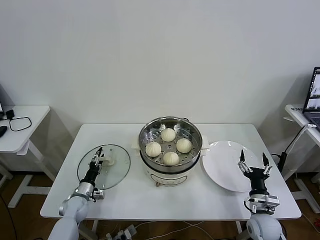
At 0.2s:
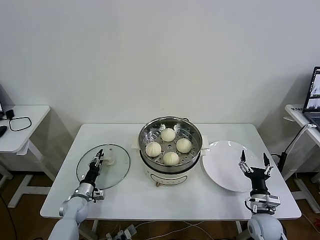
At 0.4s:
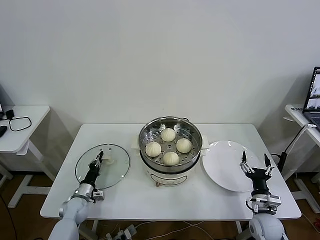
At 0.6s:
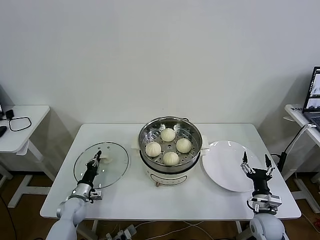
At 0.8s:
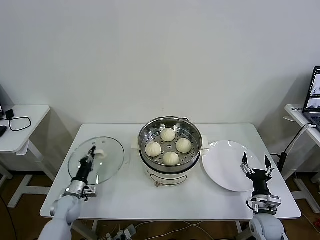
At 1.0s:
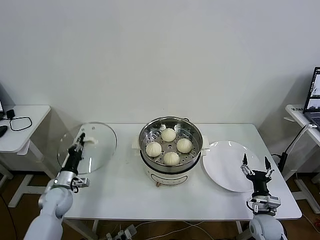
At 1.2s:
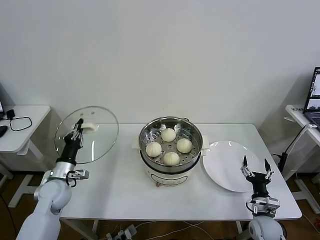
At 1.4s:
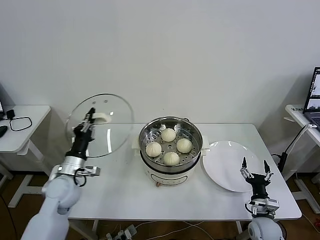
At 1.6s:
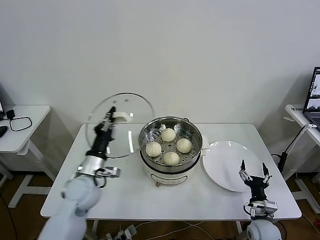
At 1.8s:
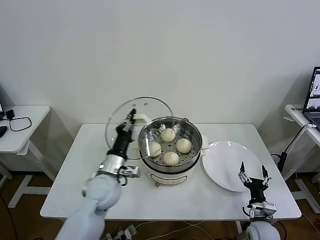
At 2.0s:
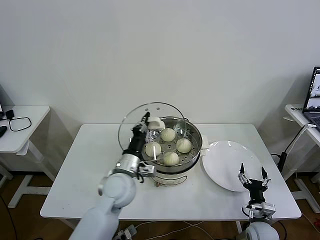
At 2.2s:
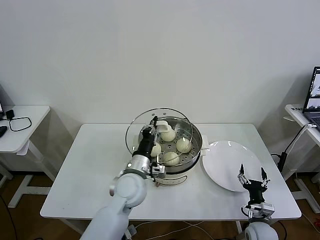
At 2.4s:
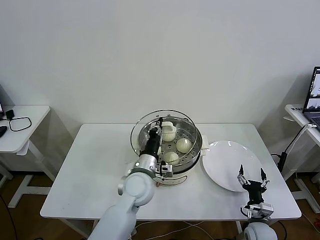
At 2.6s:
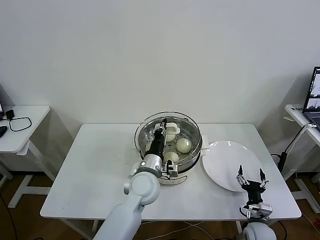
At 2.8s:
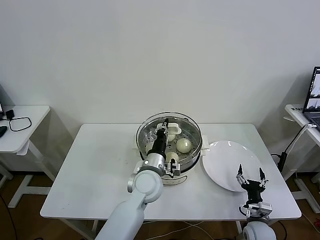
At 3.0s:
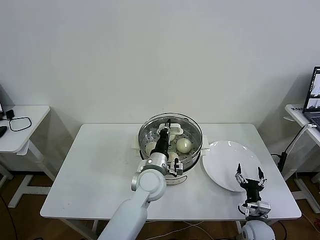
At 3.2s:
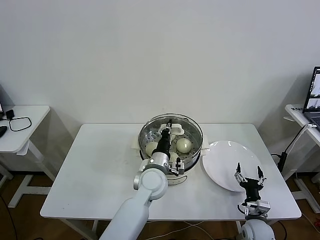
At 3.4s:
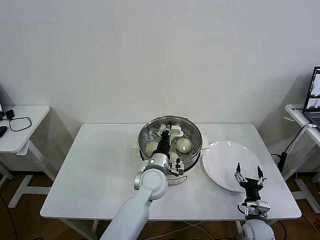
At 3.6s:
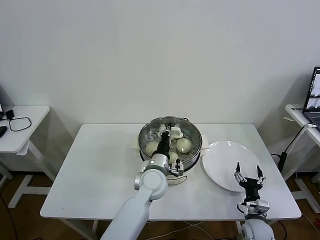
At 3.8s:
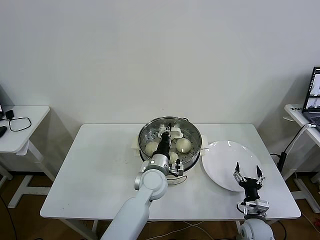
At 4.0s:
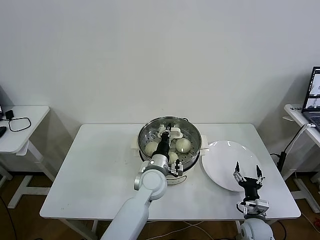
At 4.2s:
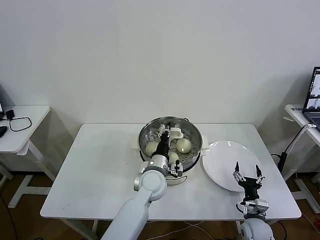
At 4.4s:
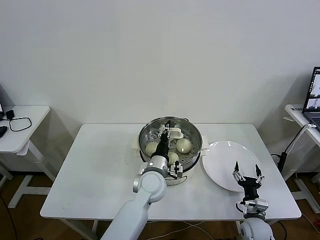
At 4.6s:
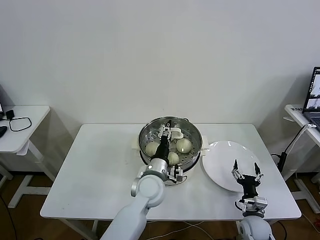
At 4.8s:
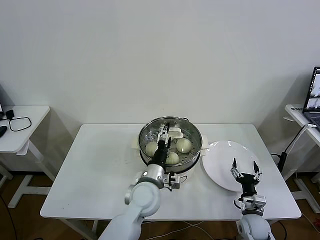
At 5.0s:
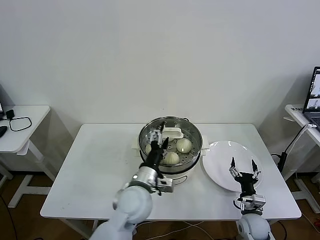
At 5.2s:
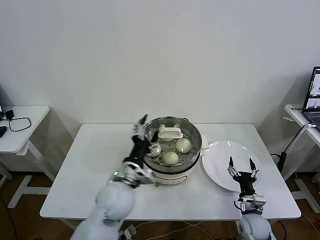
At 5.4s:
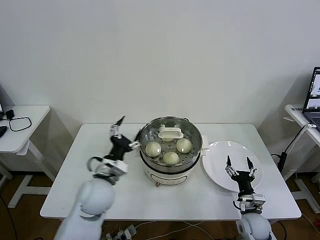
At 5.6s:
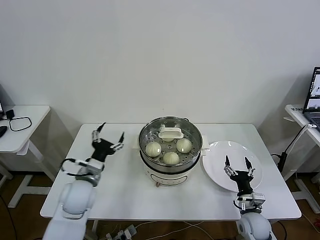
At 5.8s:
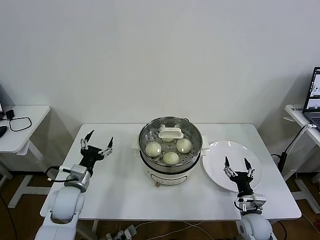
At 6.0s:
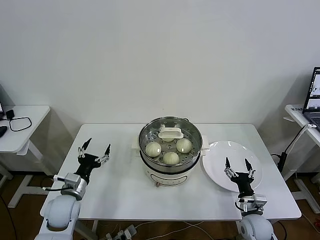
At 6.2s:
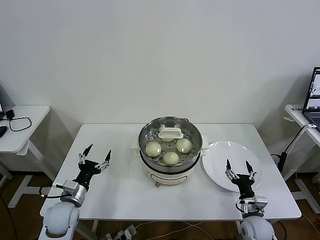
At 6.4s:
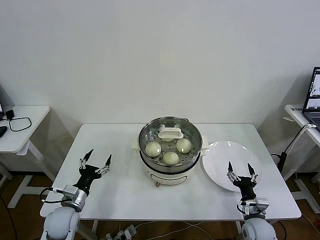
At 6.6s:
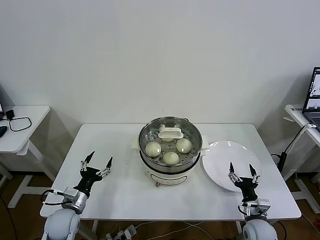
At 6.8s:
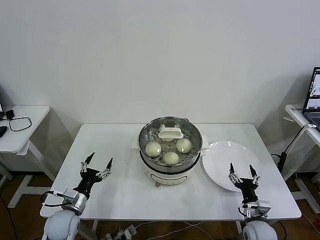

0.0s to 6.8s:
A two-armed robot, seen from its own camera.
Task of the whole recording: take steamed baozi put them in steamer then cover it.
Step, 0.6s to 4.4s: Place the pot lid on the steamer with left gripper.
0.0s to 1.4s: The left gripper is displaced upward by some 20 cm, and closes up.
1.4s to 2.8s: The left gripper is displaced to the right by approximately 25 cm.
2.8s to 4.0s: The grippers stay close to where they were, moving slightly.
4.0s to 5.4s: The left gripper is displaced to the left, backward and upward by approximately 15 cm, and opens.
5.4s to 6.8s: The left gripper moves to the left and downward, some 20 cm.
